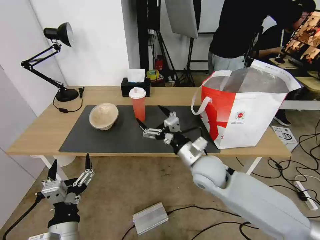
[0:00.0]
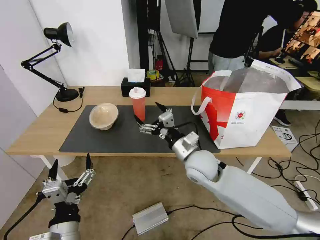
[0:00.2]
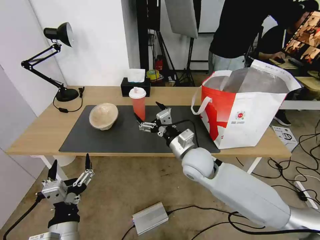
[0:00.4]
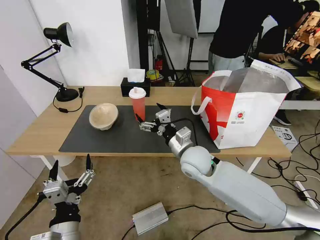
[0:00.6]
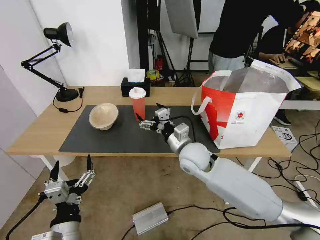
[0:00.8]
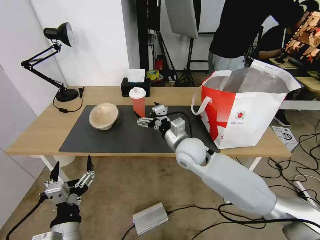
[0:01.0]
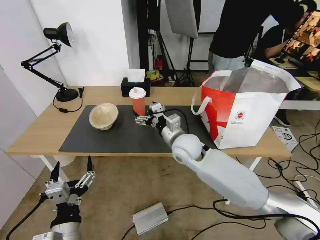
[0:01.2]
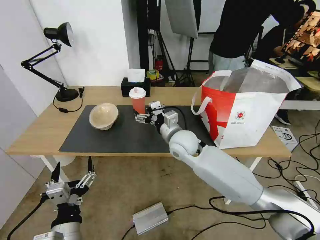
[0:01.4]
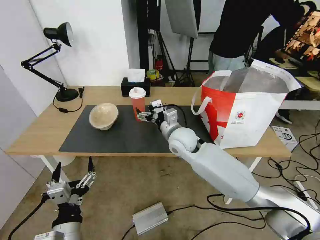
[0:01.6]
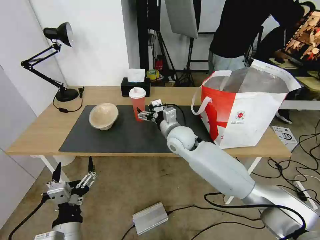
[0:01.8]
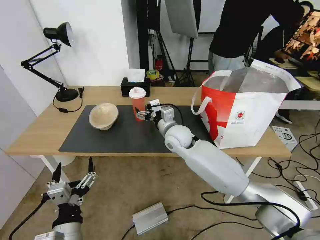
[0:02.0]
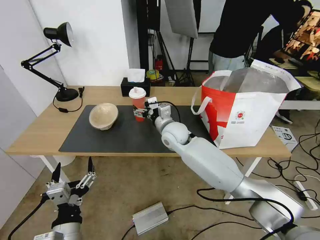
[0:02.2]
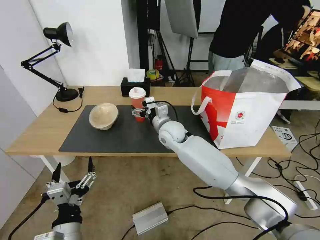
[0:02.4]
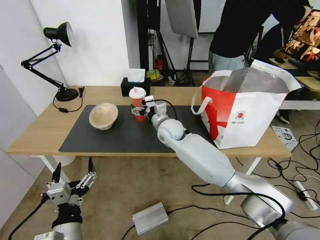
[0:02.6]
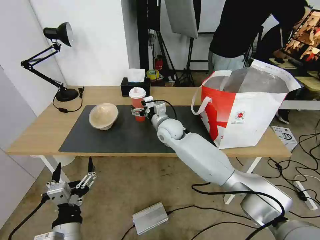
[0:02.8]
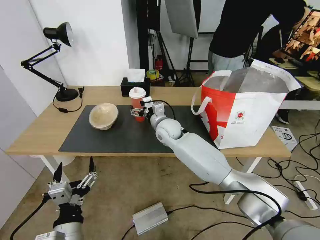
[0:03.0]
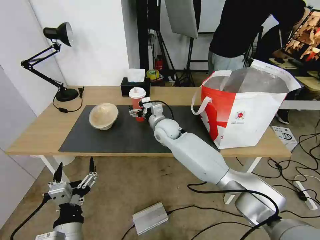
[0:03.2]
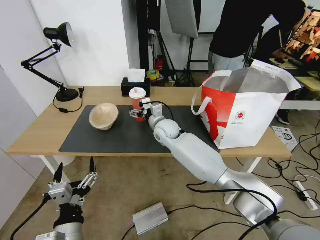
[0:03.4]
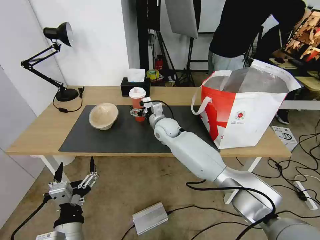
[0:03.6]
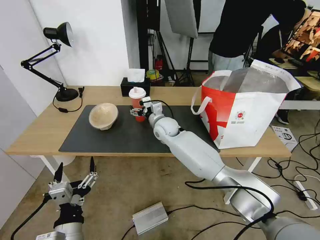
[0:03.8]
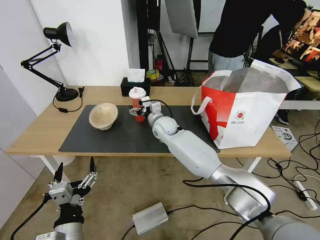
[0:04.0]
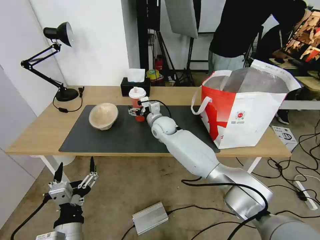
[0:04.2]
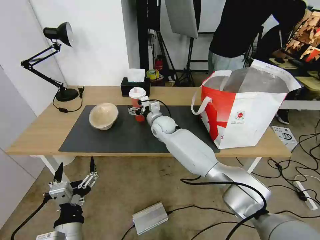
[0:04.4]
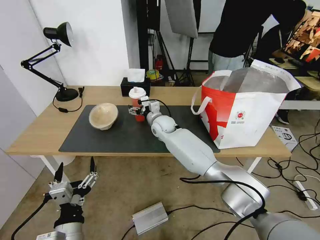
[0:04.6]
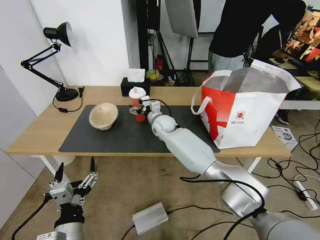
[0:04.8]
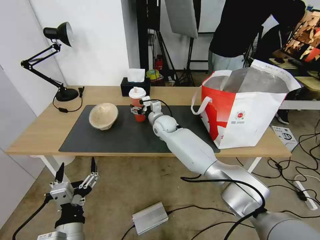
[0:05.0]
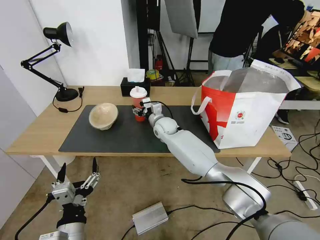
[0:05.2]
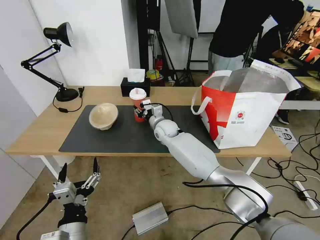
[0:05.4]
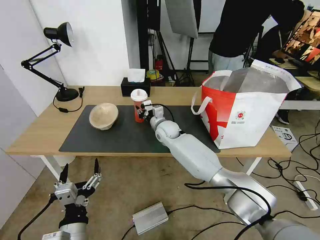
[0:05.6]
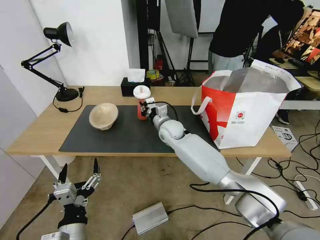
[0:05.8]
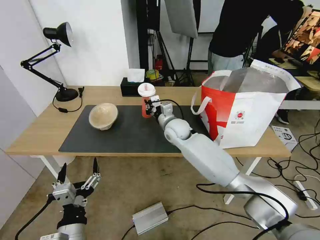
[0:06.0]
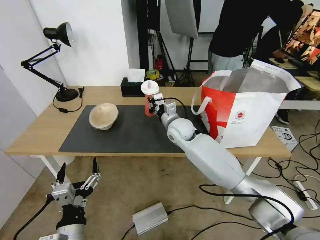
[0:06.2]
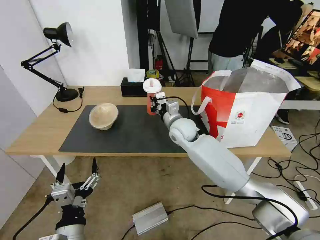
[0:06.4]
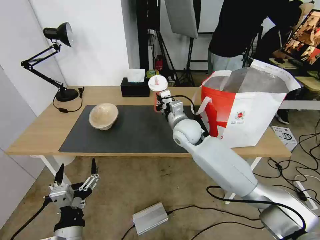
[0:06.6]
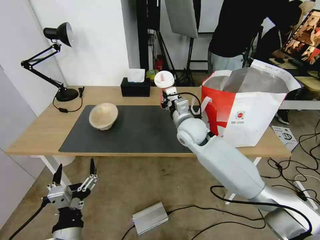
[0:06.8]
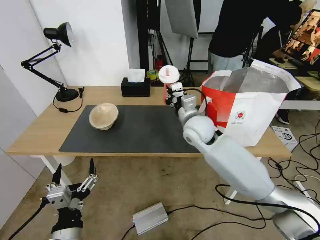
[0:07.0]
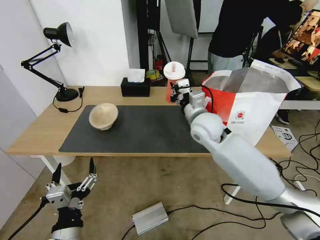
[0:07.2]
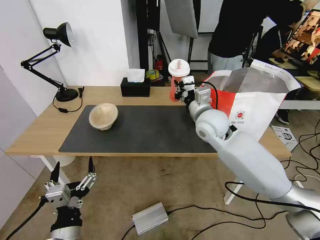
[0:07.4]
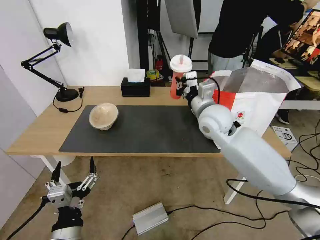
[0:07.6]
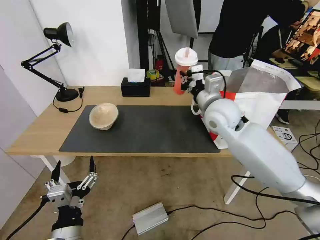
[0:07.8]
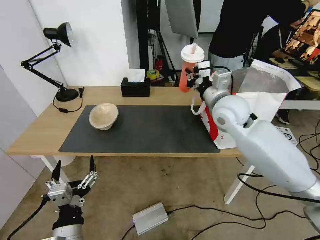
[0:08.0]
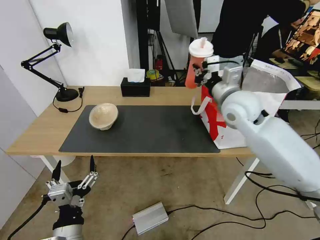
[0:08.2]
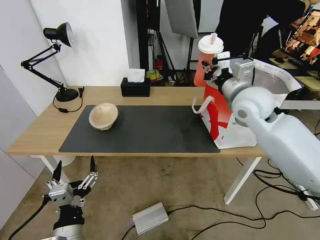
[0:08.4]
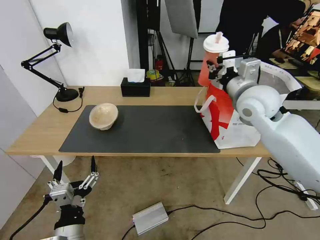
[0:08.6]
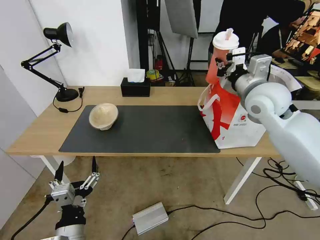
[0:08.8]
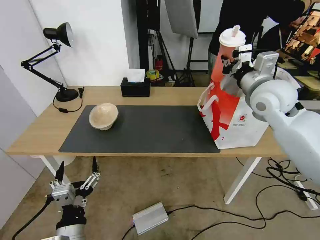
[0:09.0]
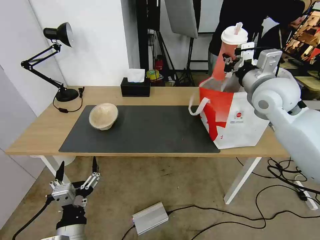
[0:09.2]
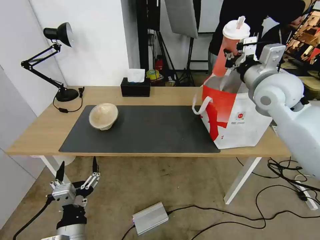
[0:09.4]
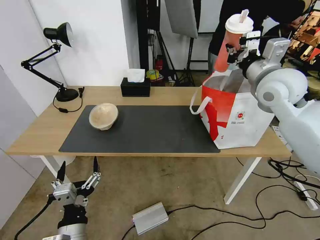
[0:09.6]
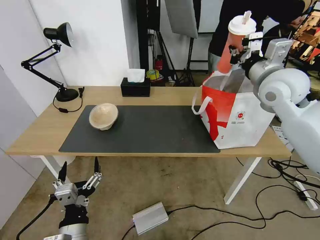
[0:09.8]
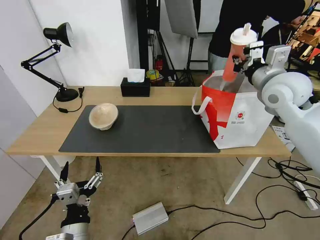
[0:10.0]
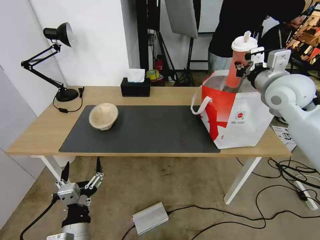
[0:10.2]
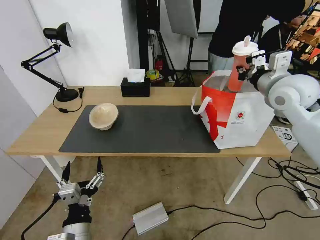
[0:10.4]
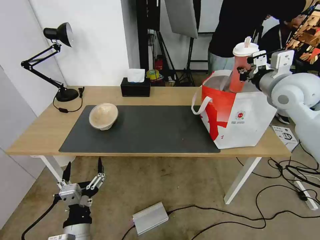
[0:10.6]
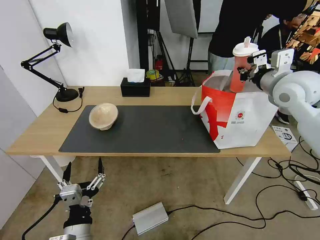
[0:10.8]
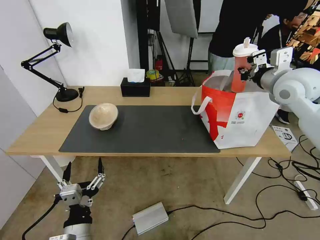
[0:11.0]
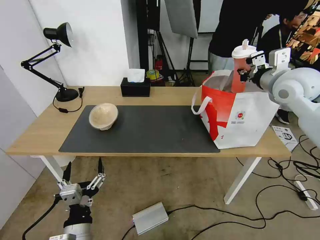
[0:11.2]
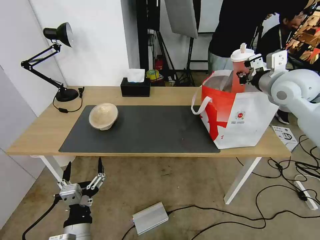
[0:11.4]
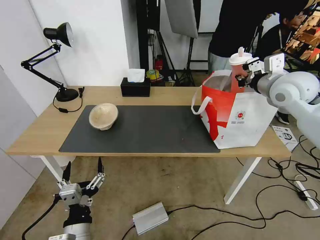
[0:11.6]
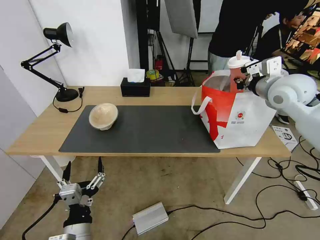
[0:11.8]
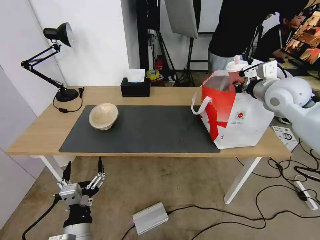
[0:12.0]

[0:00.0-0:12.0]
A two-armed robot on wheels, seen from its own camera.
Task of the whole recording: Pick up the trash from the table and place it into the takeout bag.
0:00.0 to 0:01.6: The right gripper is displaced forward and to the left by roughly 15 cm.
0:01.6 to 0:03.0: The right gripper shifts approximately 5 cm forward.
0:03.0 to 0:04.4: The grippers stay close to where they were, moving slightly.
0:04.4 to 0:06.0: The right gripper heads to the right, covering approximately 5 cm, and closes up.
0:06.0 to 0:07.6: The right gripper goes roughly 15 cm upward, to the right and backward.
0:07.6 to 0:09.0: The right gripper heads to the right and upward, covering roughly 15 cm.
0:09.0 to 0:10.4: The right gripper moves some 5 cm.
0:10.4 to 0:12.0: There are only small adjustments of the grippers.

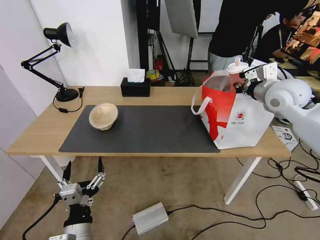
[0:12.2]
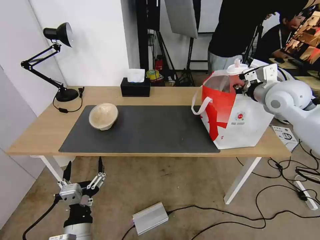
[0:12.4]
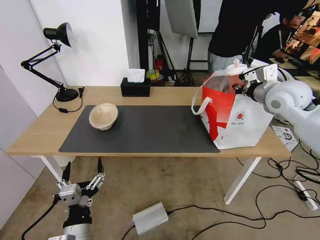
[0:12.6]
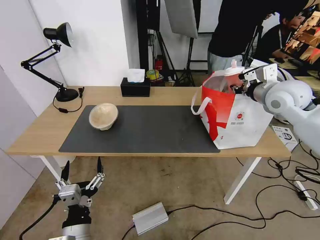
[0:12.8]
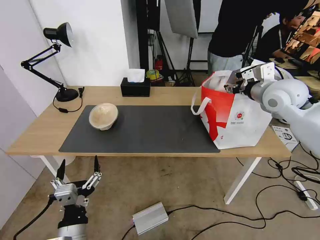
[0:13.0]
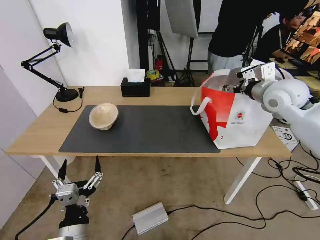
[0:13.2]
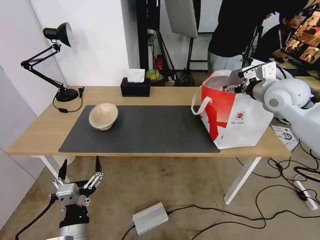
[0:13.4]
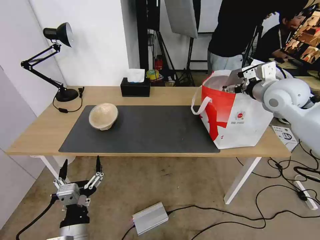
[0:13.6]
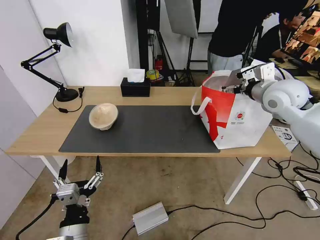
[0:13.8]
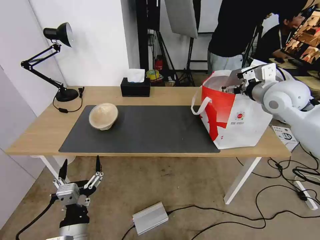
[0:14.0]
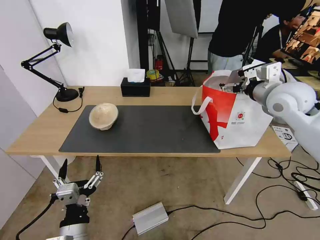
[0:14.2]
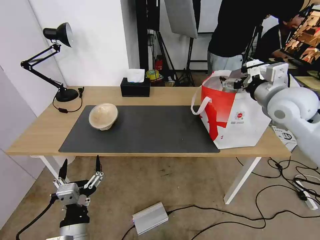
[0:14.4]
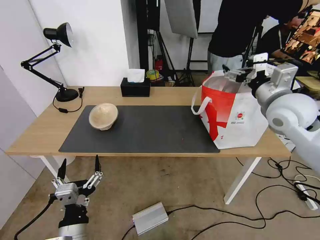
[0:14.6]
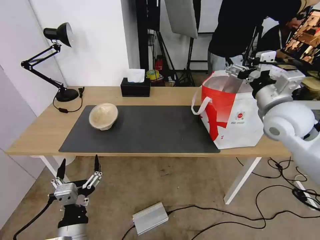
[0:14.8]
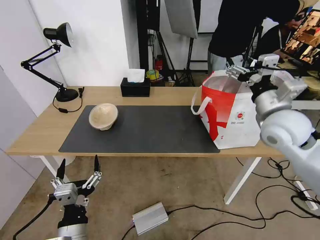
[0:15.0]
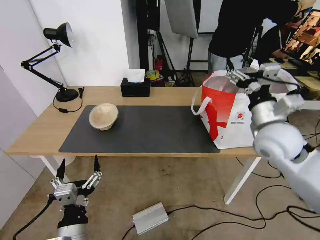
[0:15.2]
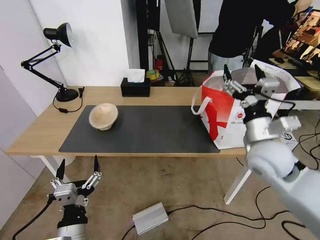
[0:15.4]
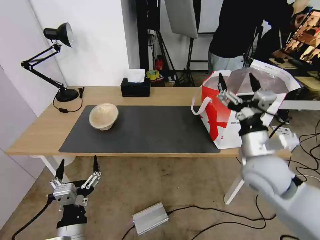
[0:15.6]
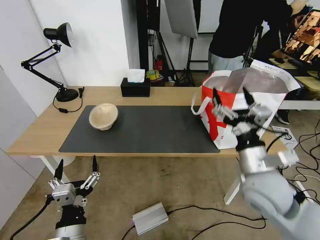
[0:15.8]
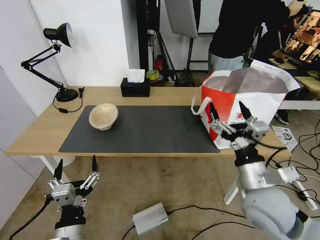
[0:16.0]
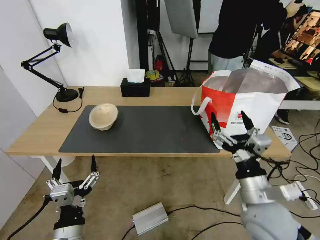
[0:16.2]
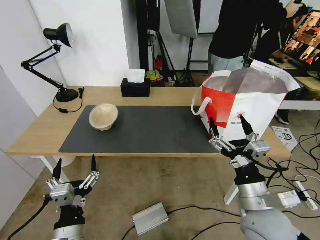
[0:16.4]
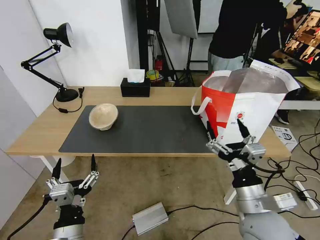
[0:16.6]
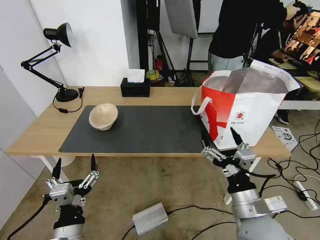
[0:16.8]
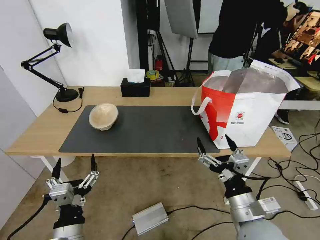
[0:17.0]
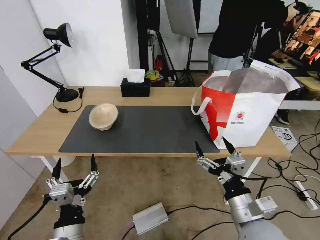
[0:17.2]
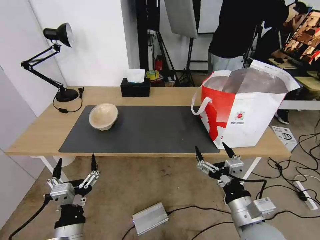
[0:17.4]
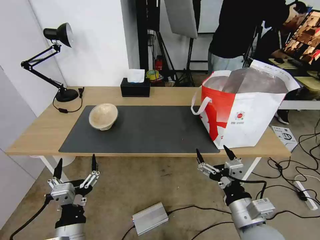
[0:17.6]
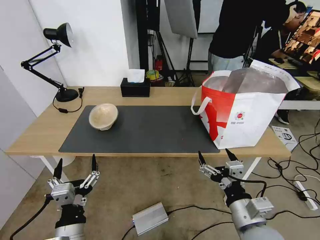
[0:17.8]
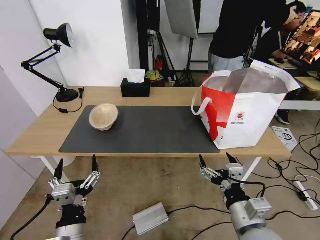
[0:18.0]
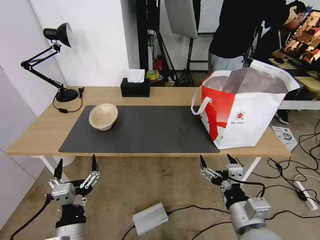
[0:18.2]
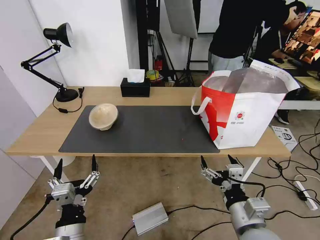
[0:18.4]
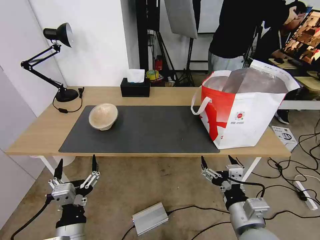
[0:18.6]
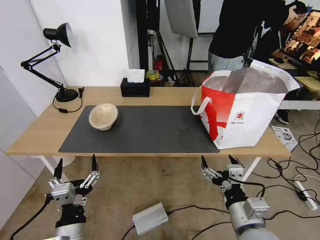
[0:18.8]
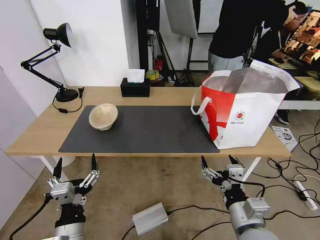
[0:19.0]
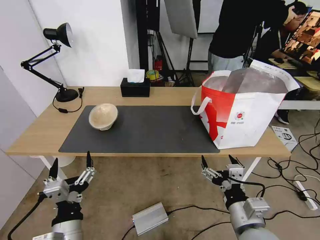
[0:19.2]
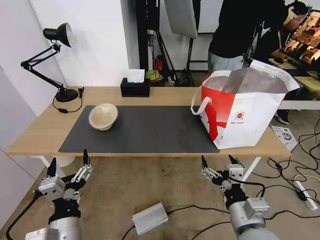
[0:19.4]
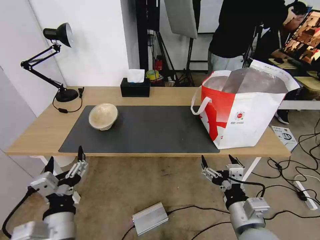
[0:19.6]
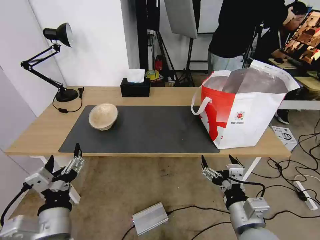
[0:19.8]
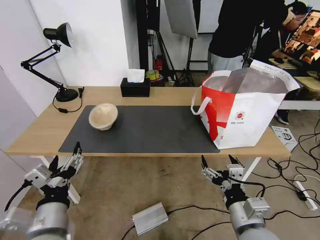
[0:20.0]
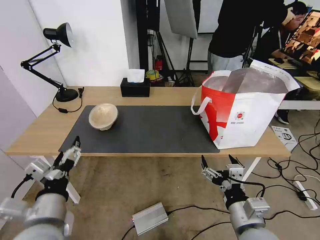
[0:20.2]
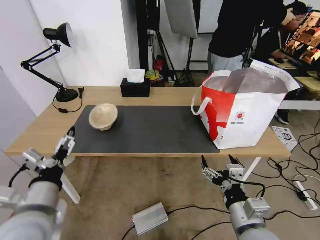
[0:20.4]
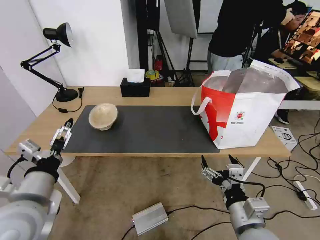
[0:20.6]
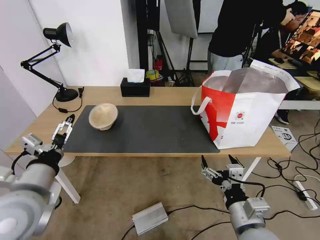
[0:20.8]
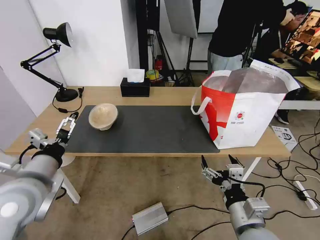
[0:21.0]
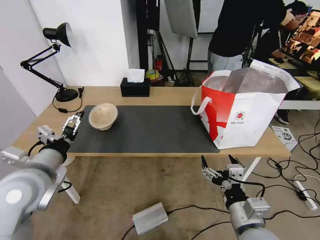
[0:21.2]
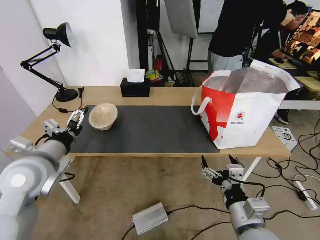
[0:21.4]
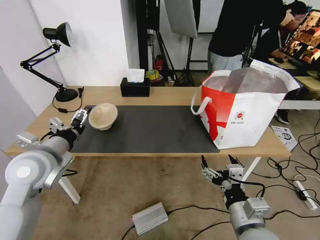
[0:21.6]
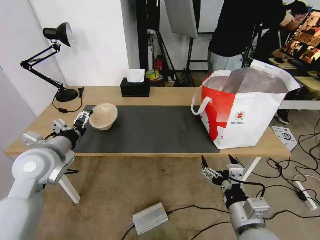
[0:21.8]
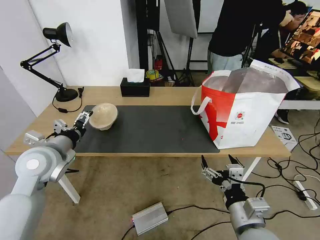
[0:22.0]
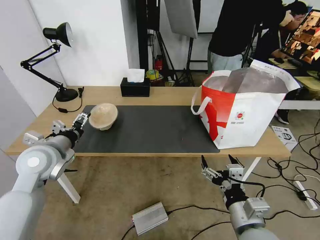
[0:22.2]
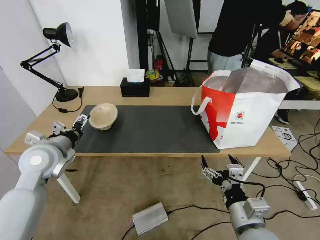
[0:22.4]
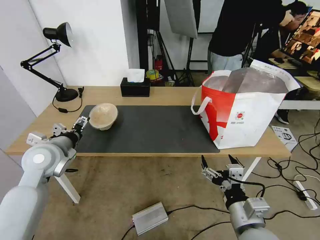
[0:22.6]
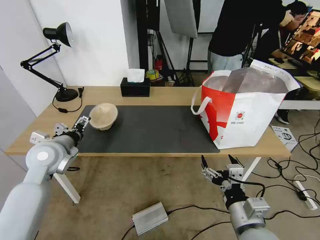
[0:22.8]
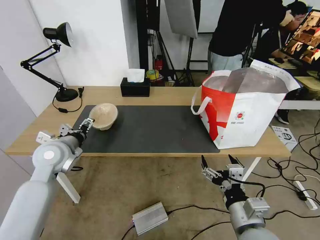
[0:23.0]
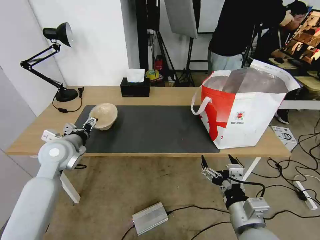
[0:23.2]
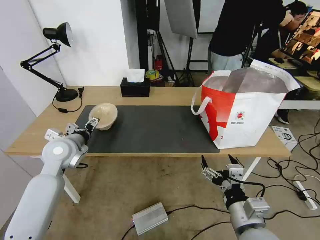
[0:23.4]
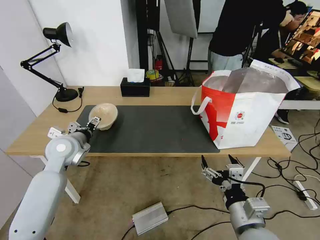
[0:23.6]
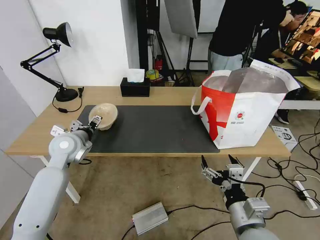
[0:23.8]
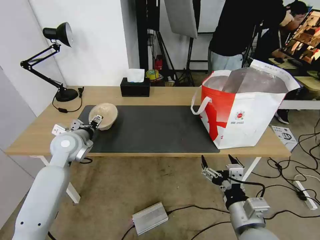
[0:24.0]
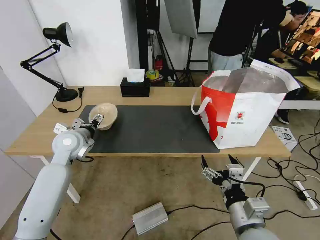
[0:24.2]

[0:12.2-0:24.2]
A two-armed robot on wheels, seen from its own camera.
Task of the whole recording: Pick up the trash from the table and place it into the takeout bag.
0:12.2 to 0:13.8: The right gripper opens up.
0:13.8 to 0:15.2: The right gripper heads backward and downward, covering some 15 cm.
0:15.2 to 0:16.6: The right gripper heads backward and downward, covering roughly 20 cm.
0:18.2 to 0:19.8: The left gripper shifts about 5 cm upward.
0:19.8 to 0:21.2: The left gripper heads forward, upward and to the left, covering approximately 15 cm.
0:21.2 to 0:22.6: The left gripper moves forward, some 10 cm.
0:22.6 to 0:24.2: The left gripper heads forward, covering roughly 5 cm.
